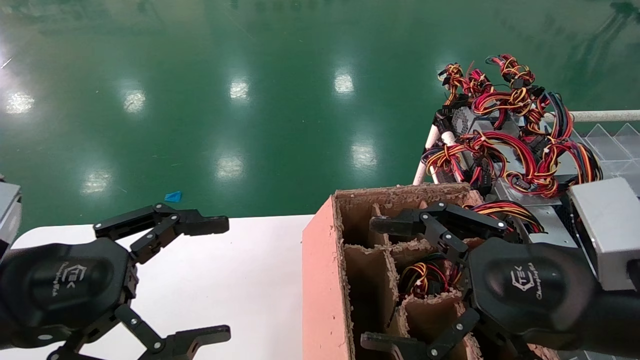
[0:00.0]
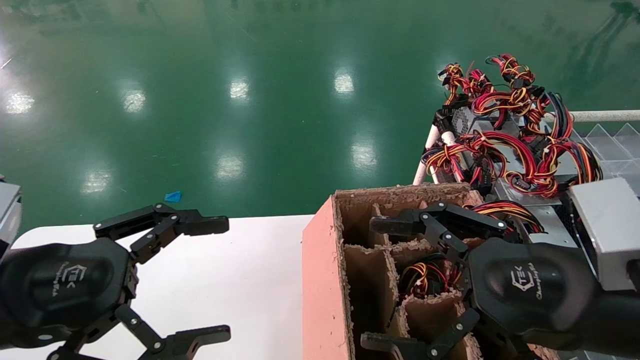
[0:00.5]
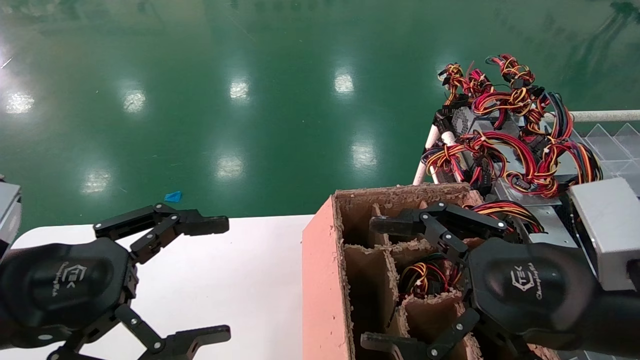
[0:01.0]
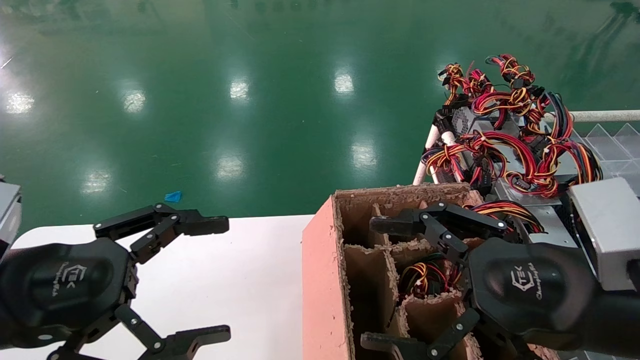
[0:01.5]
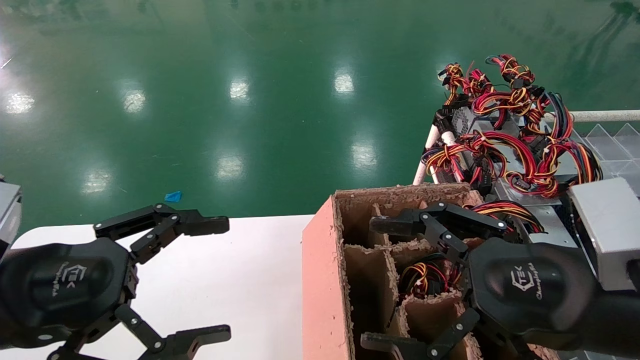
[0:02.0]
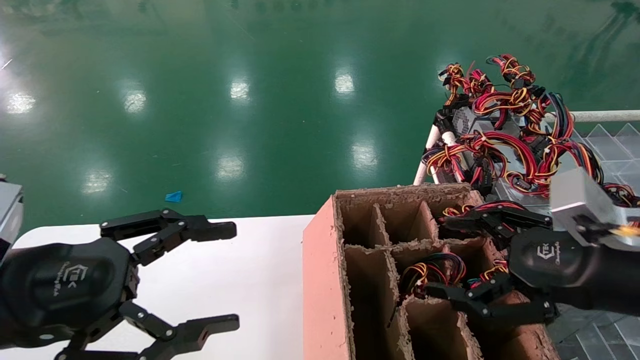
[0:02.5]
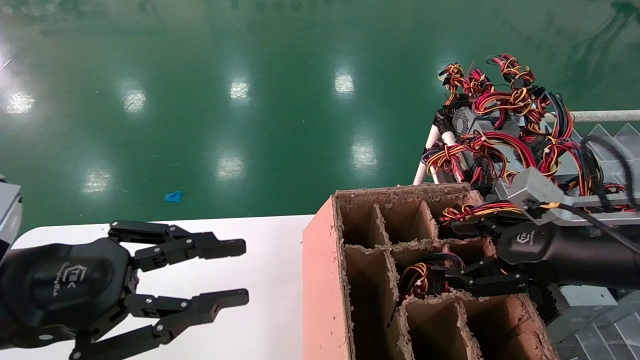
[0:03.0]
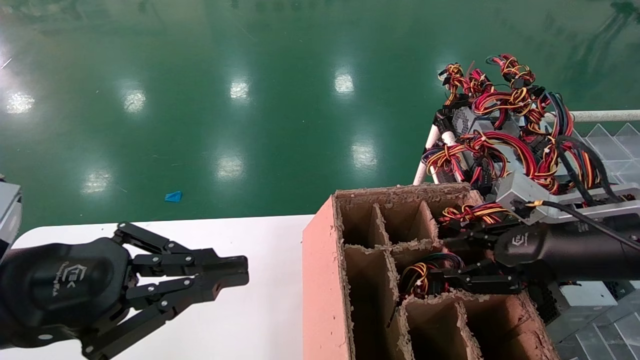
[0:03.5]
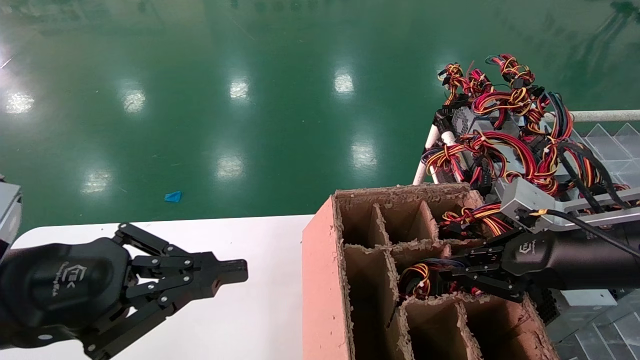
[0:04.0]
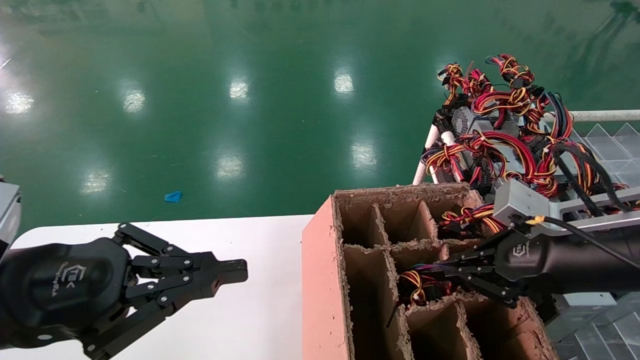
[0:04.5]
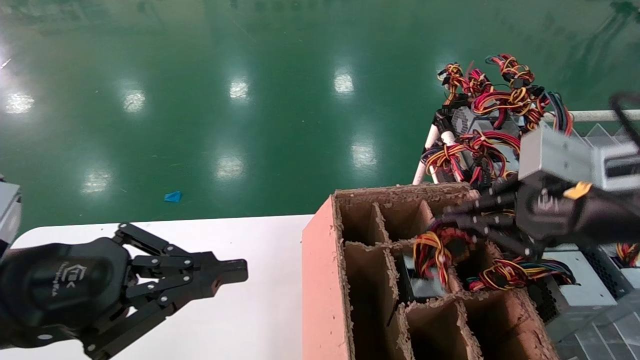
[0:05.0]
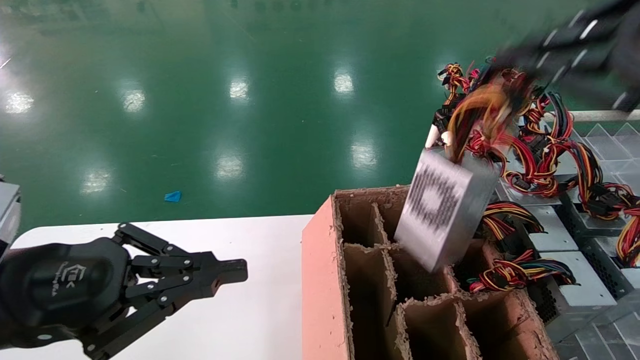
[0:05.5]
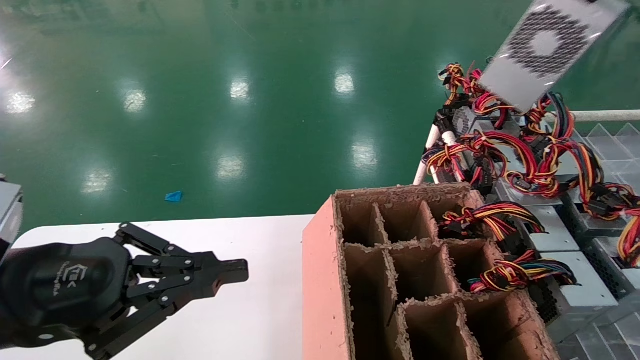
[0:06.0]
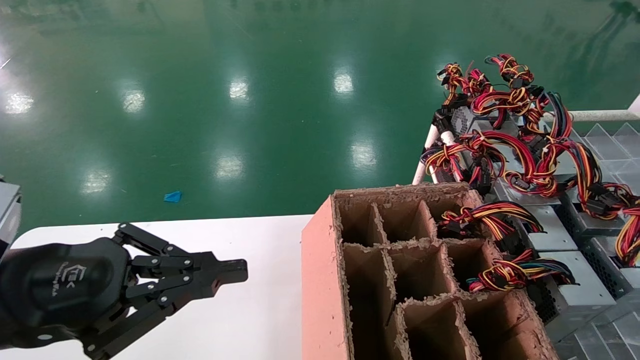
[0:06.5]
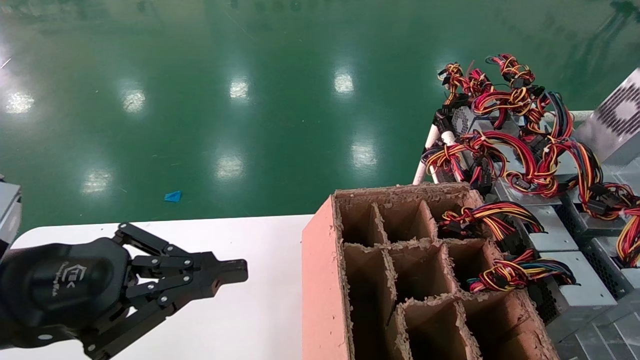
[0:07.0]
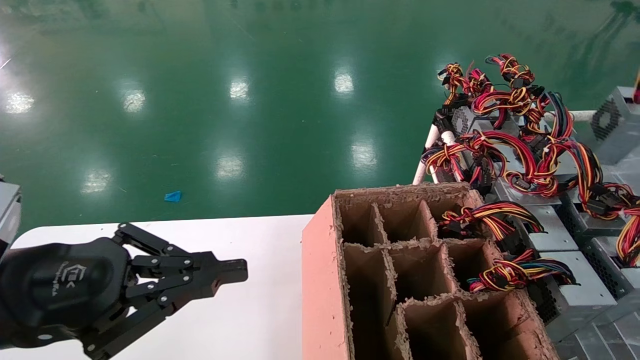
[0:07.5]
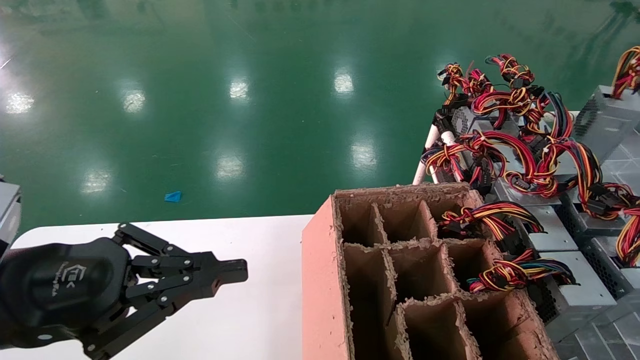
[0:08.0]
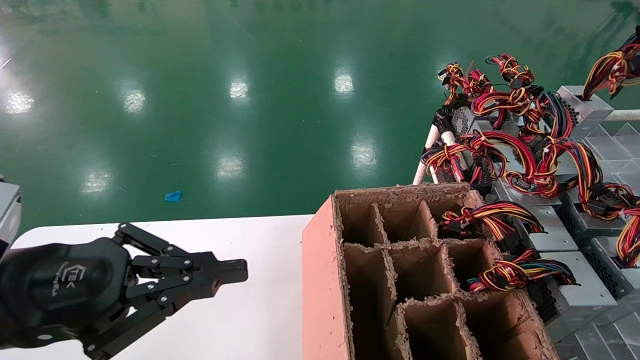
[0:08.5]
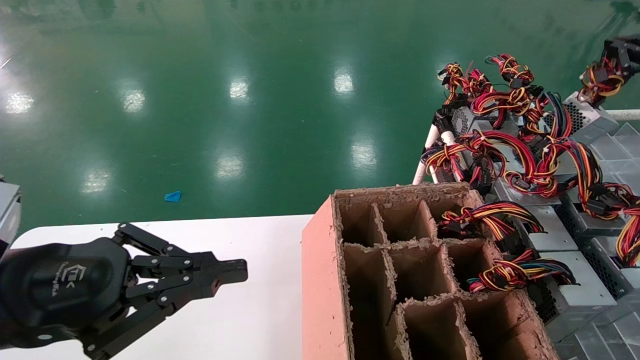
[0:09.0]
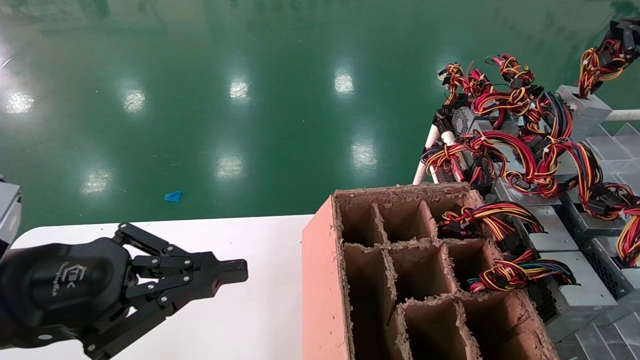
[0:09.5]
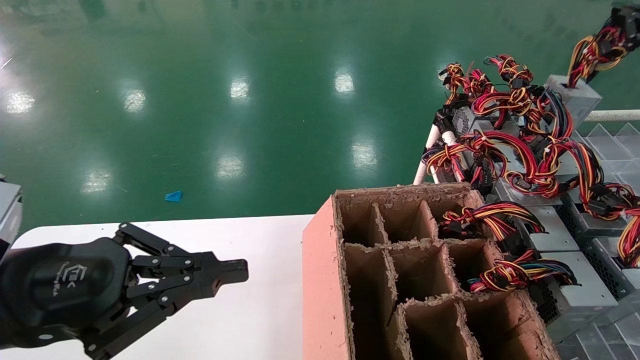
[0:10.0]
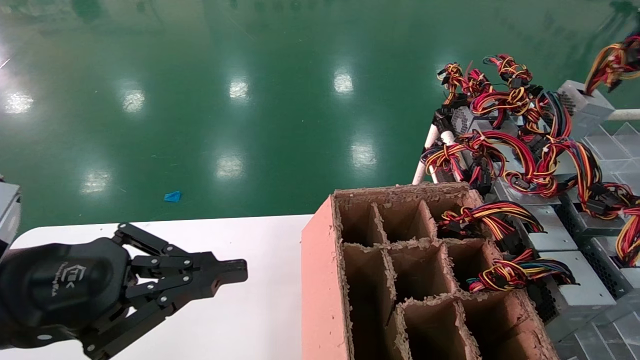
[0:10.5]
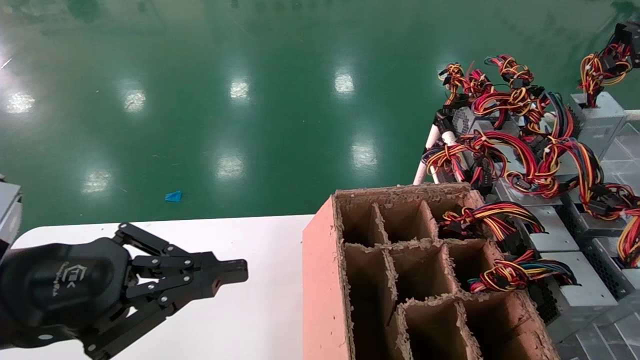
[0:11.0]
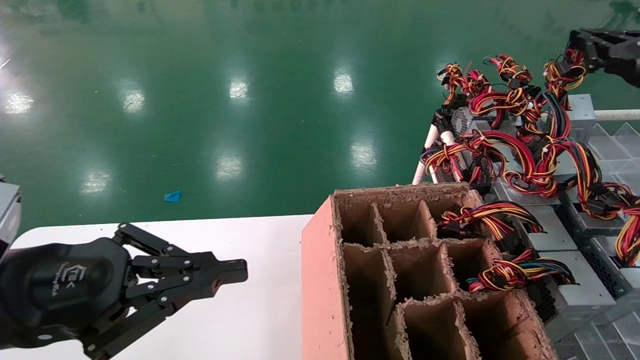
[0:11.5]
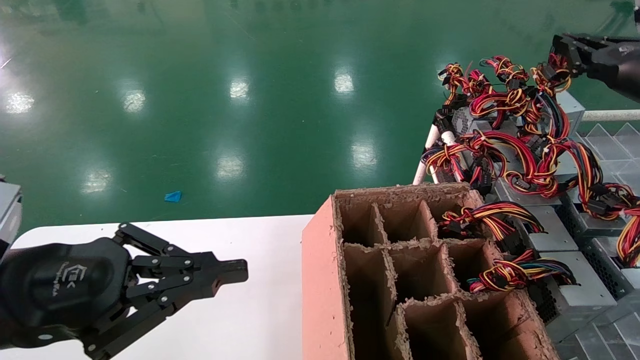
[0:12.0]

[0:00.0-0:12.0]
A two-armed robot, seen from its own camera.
Step, 0:01.0 to 0:03.0: Grab the main unit power supply from the containment box.
Step, 0:03.5 to 0:10.5: Place the main unit power supply in the designated area.
0:00.0 to 0:02.0: Neither gripper changes place.
0:02.0 to 0:04.0: The right gripper moves forward and to the right, roughly 10 cm, and closes up, while the left gripper closes.
0:04.0 to 0:06.0: The right gripper goes approximately 30 cm upward and backward.
0:06.0 to 0:08.0: The right gripper moves forward, to the right and downward, approximately 25 cm.
0:08.0 to 0:10.0: The right gripper changes place by roughly 5 cm.
0:10.0 to 0:12.0: The right gripper moves some 5 cm.

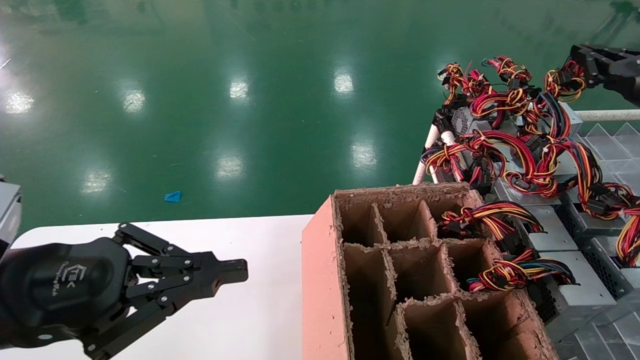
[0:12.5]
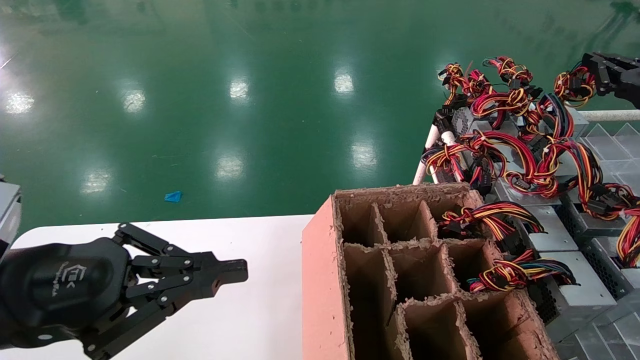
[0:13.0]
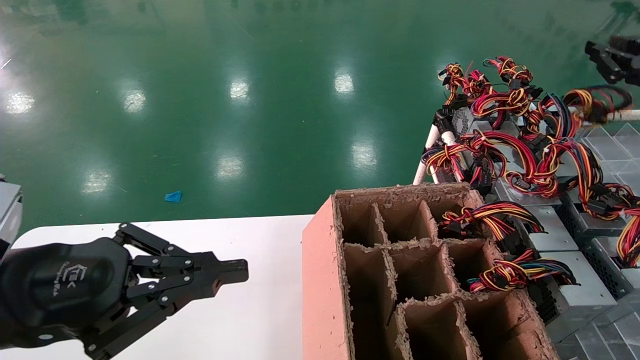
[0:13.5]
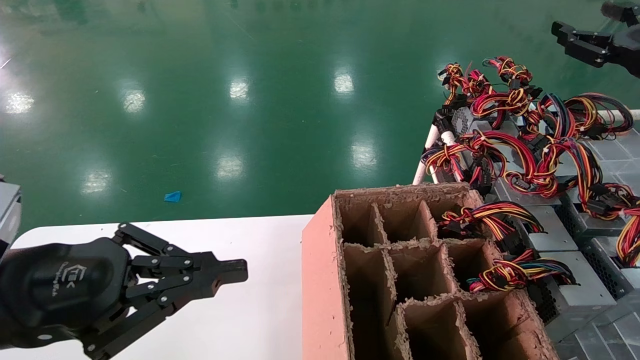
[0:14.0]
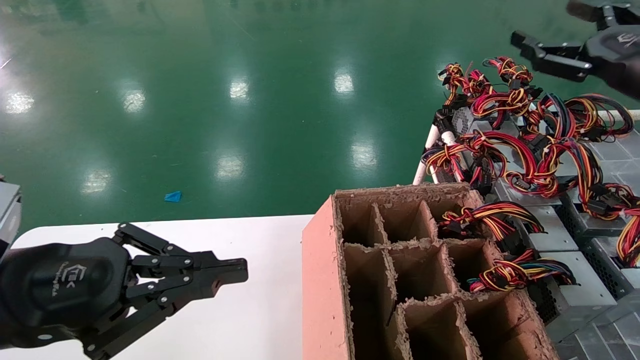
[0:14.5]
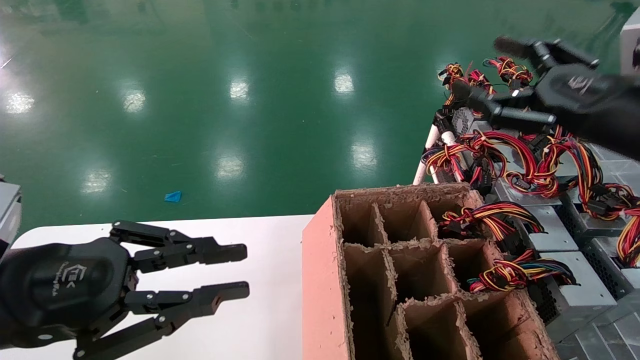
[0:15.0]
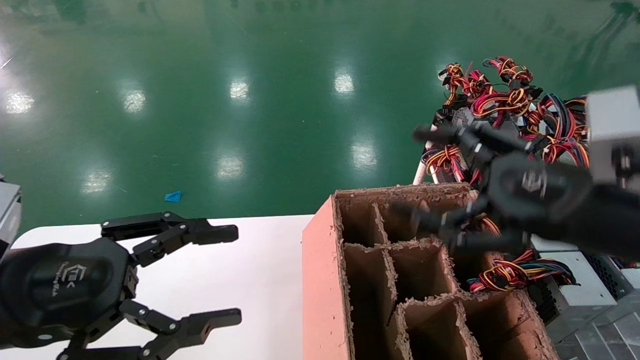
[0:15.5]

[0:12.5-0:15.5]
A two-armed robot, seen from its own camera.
0:12.5 to 0:14.0: The right gripper opens up.
0:14.0 to 0:15.5: The left gripper opens up, while the right gripper shifts some 25 cm to the left, backward and downward, and opens up.
